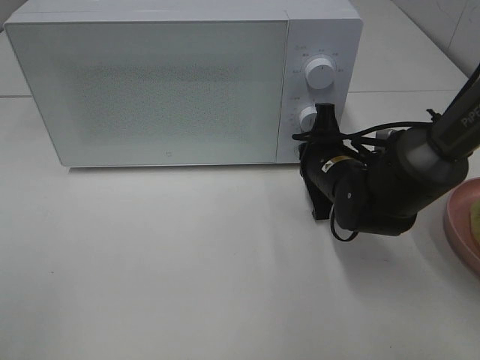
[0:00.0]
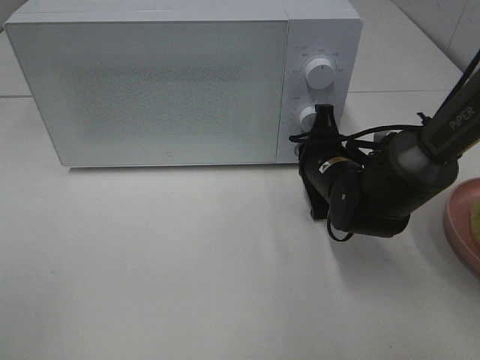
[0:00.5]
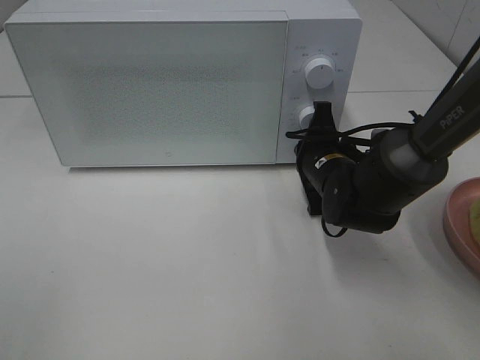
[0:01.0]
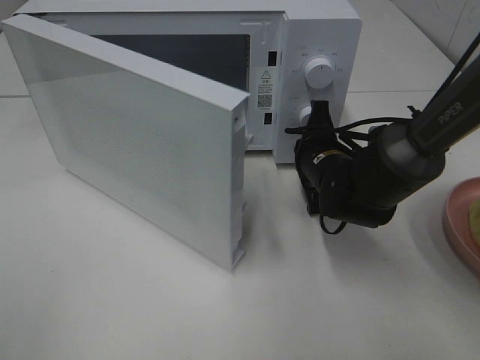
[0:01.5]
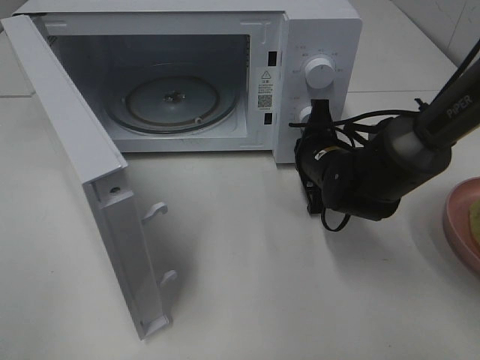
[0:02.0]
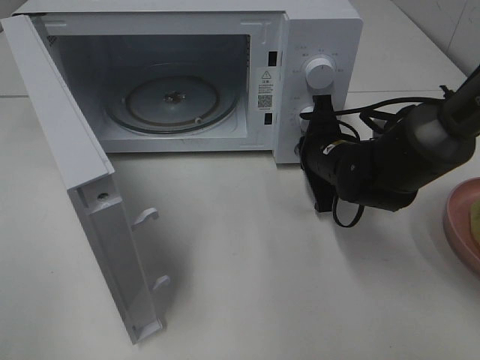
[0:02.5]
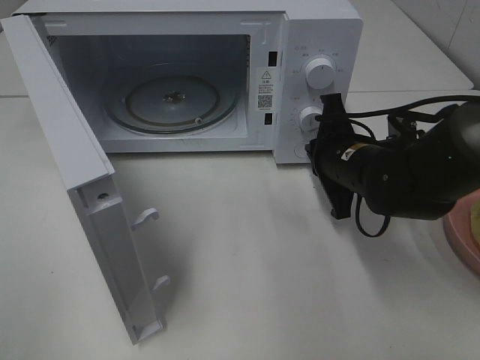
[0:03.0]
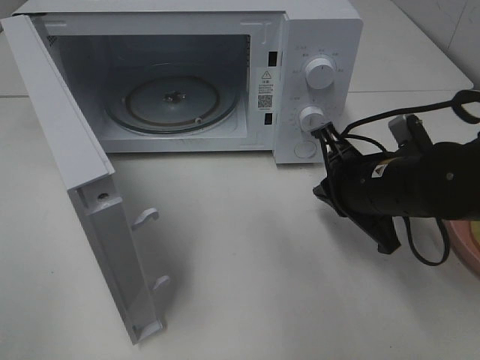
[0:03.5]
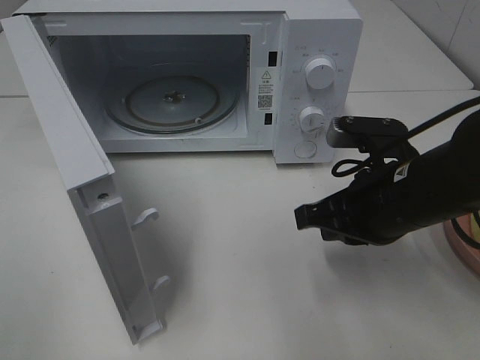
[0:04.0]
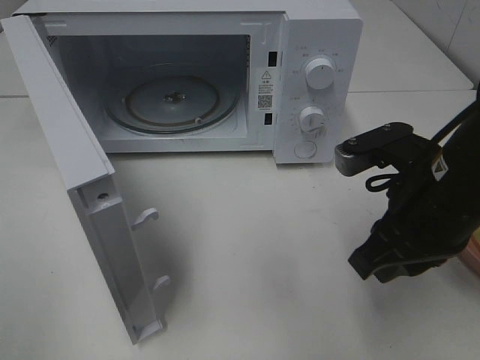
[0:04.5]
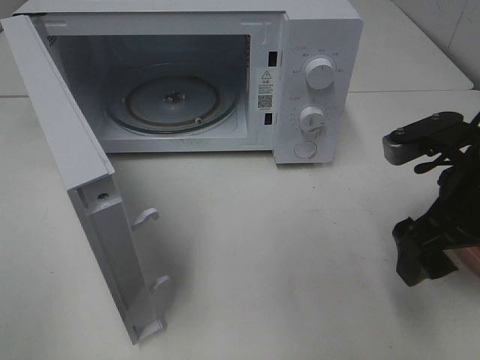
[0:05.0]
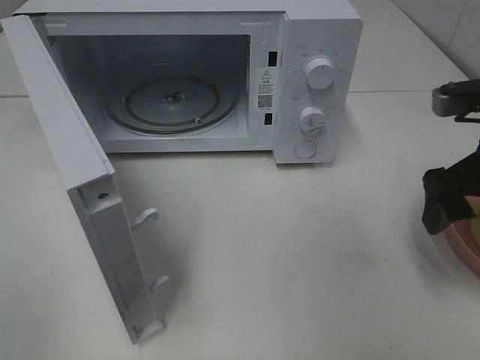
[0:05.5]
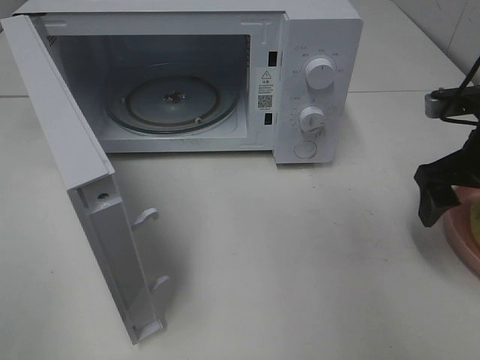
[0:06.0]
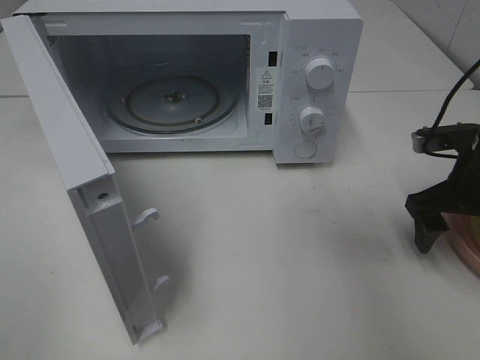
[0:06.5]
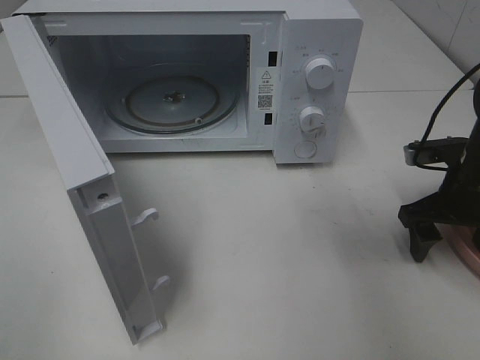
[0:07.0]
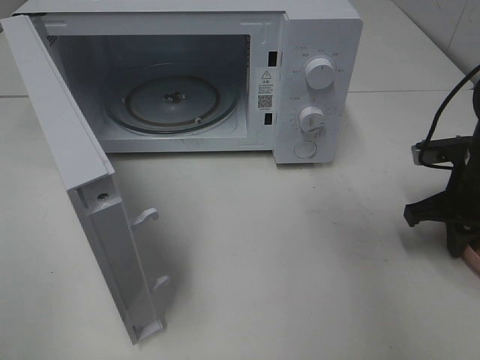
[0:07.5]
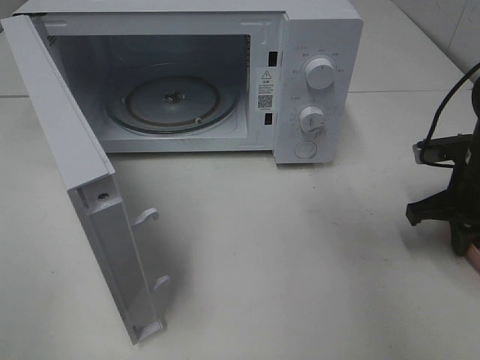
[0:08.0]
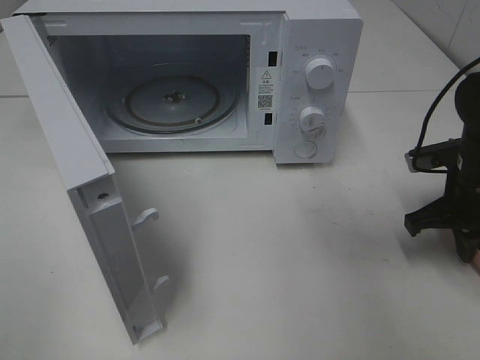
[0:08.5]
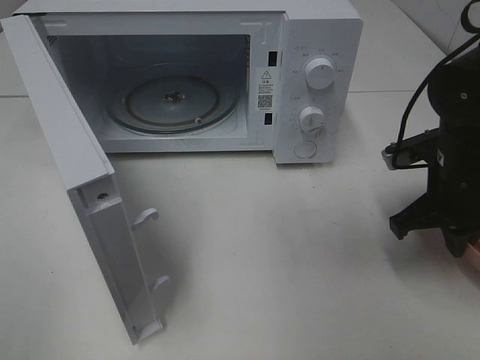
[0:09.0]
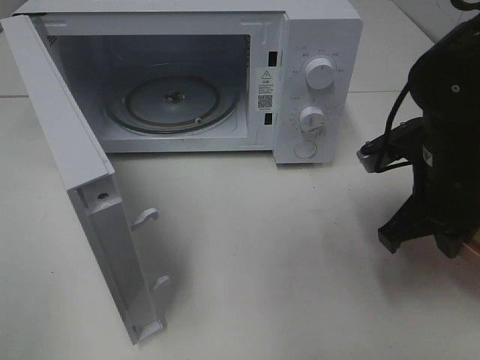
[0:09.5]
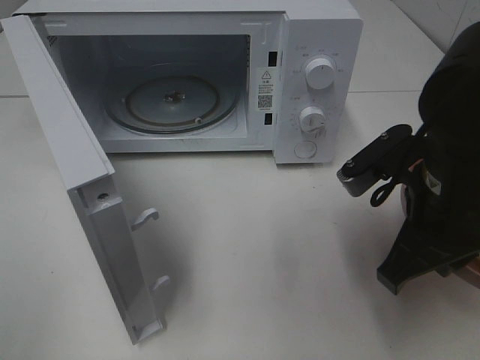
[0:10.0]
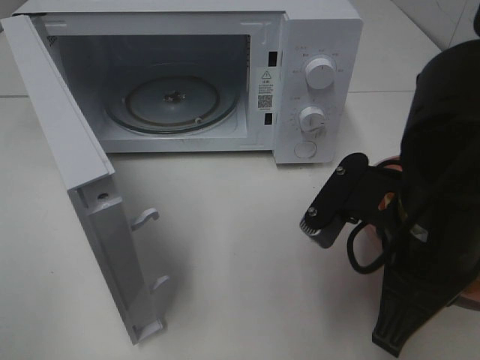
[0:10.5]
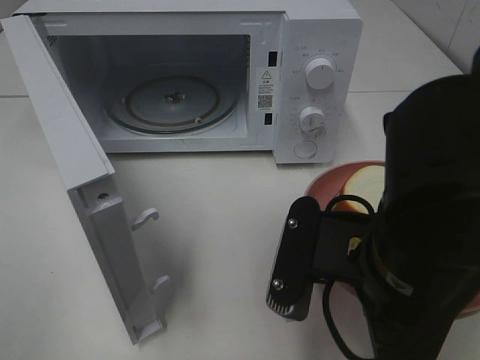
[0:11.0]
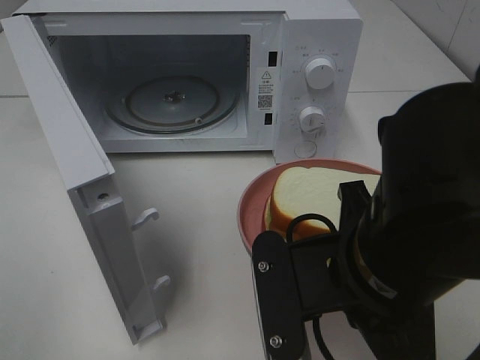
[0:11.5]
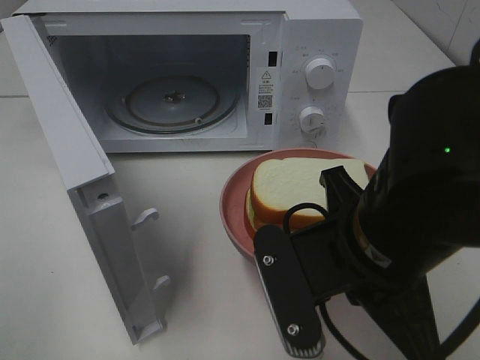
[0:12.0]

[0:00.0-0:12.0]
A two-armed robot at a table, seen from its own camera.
Task of the whole recording: Heat Sandwich.
Step, 0.0 to 3.0 s: Right hand: press the switch.
Step, 3.5 to 8.5 s: Right hand: grab the plate with the sandwich.
2.0 to 4.0 s: The right gripper moves backward and upward, approximately 15 cm.
4.0 to 6.0 s: The right gripper moves to the right and forward, about 15 cm, and opens up.
6.0 to 8.0 s: The right gripper goes about 5 cm downward, and closes up.
8.0 to 10.0 s: The right gripper goes roughly 15 cm to the left, backward and upward.
10.0 to 12.0 s: The right gripper travels to the left and backward by about 10 cm.

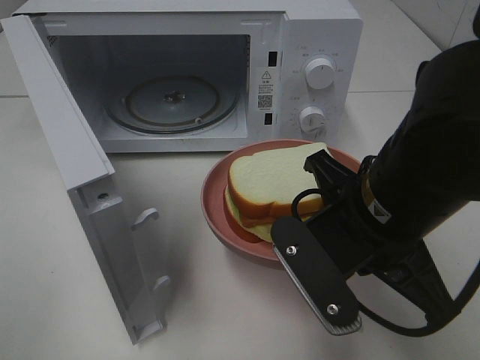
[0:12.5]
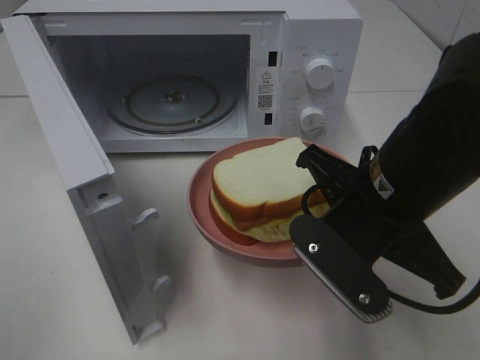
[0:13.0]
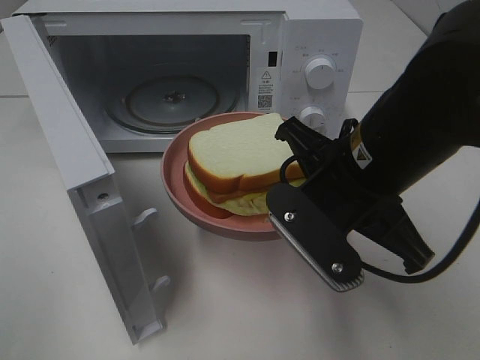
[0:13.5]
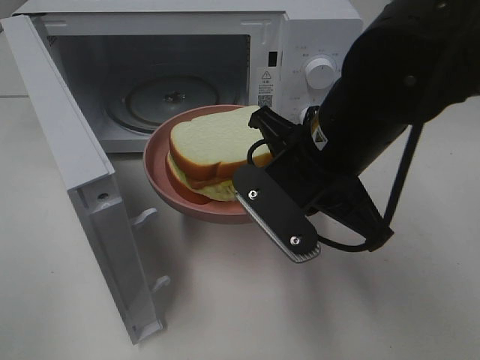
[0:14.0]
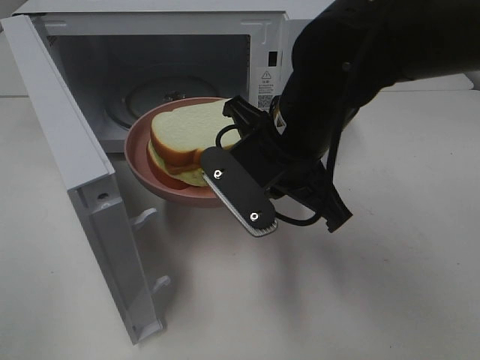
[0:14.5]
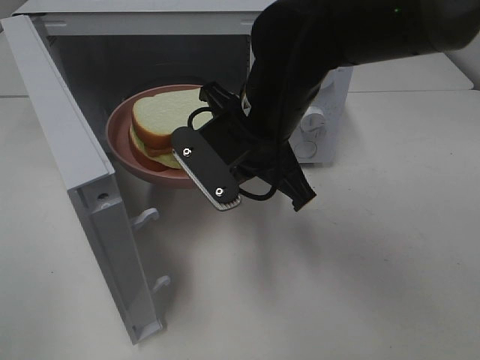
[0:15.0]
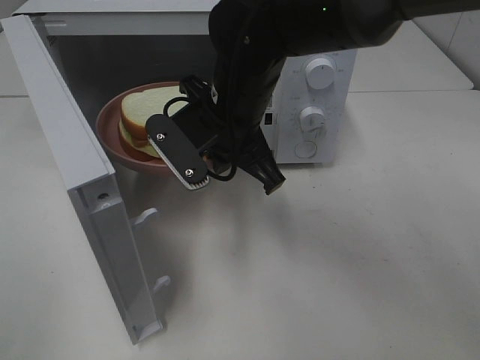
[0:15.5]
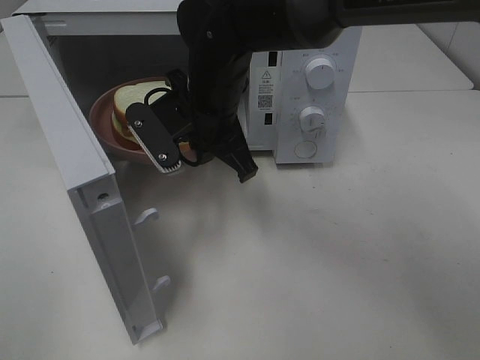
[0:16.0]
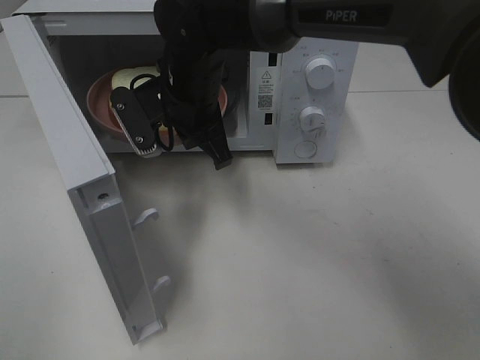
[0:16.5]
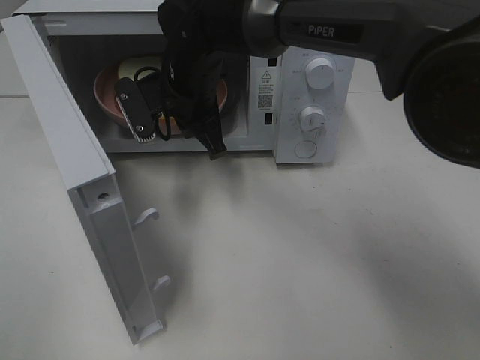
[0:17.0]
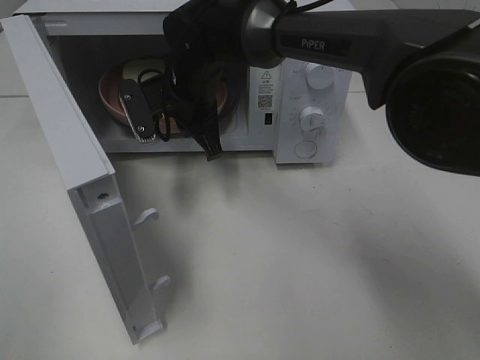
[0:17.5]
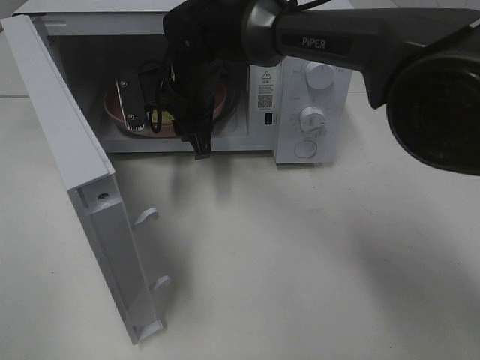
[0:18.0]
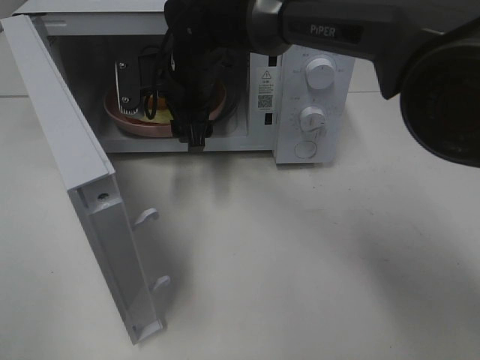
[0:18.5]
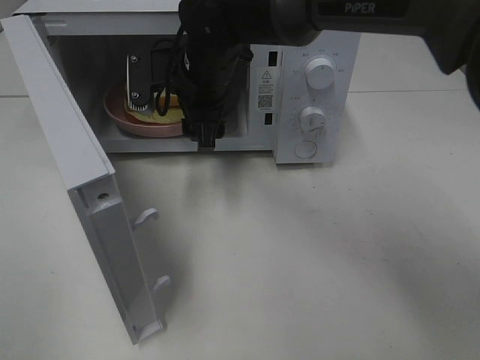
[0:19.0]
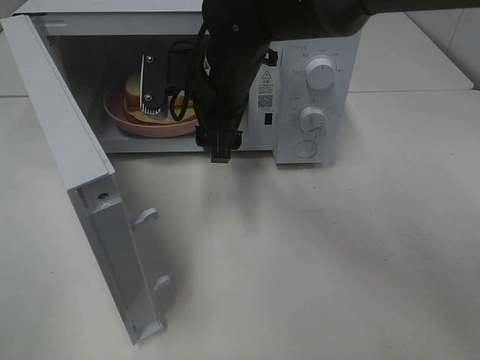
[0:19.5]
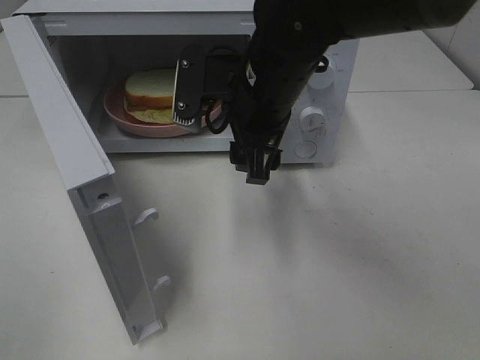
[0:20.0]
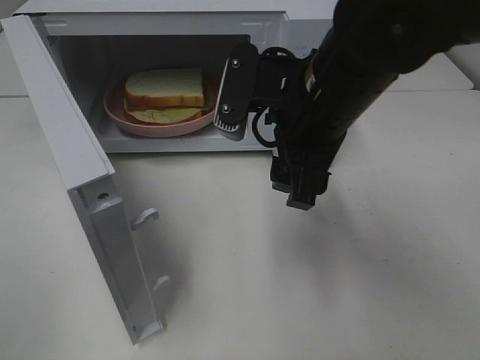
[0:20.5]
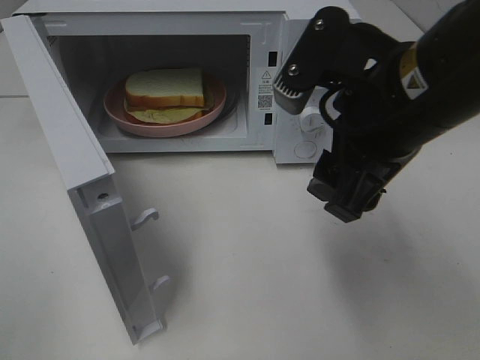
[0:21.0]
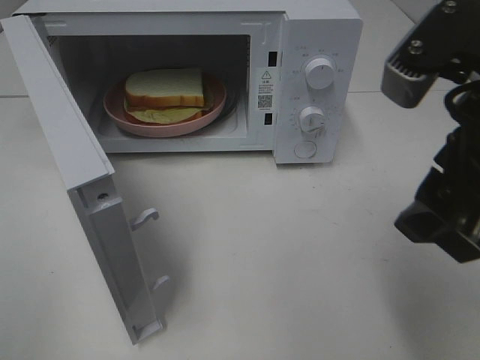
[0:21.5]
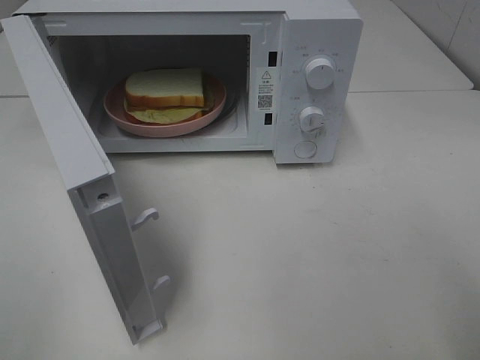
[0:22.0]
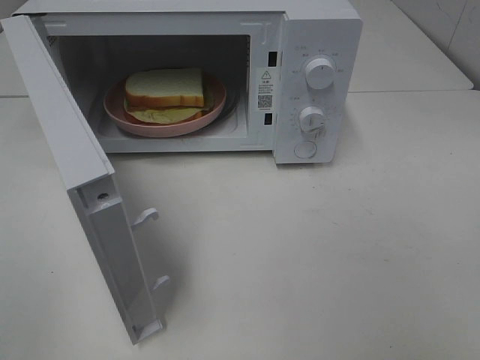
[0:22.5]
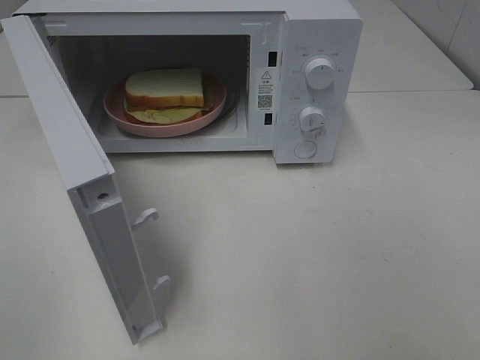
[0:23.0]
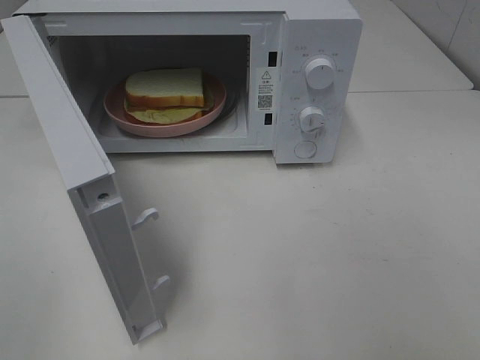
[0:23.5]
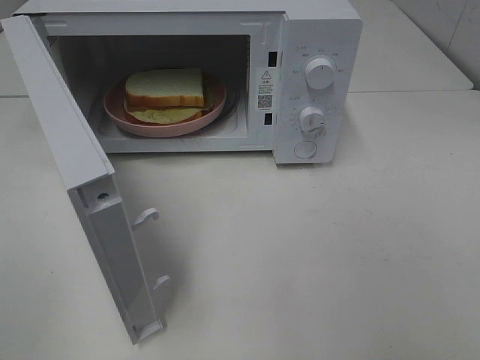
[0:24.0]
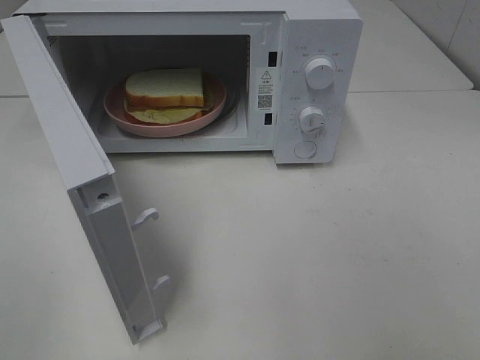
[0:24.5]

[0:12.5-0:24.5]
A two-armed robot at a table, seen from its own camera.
Task of the whole recording: Heat Sandwich.
Step, 12.5 to 18.5 s: Right hand: place the plate in the microwave.
12.5 to 14.5 s: The right gripper moves forward and to the left, some 10 cm.
14.5 to 16.5 s: The right gripper travels forward and to the left by approximately 15 cm.
16.5 to 18.5 s: The right gripper opens its fingers.
18.5 to 20.5 s: The right gripper is displaced backward and to the right by about 20 cm.
20.5 to 22.5 s: The right gripper is displaced backward and to the right by approximately 30 cm.

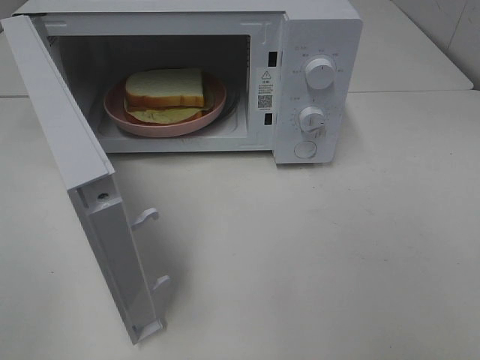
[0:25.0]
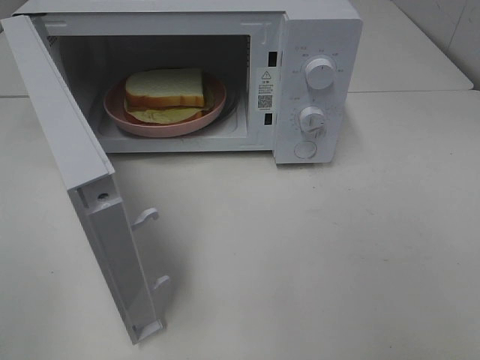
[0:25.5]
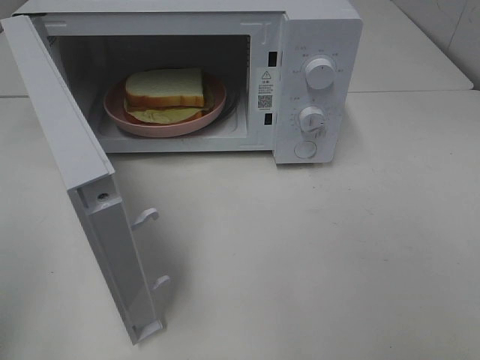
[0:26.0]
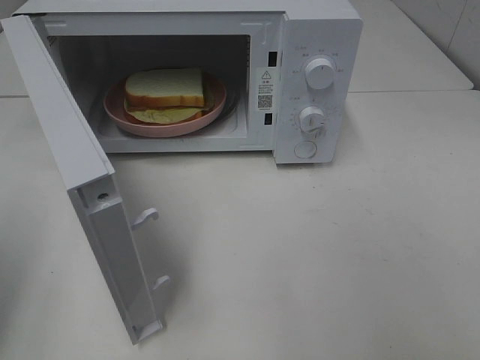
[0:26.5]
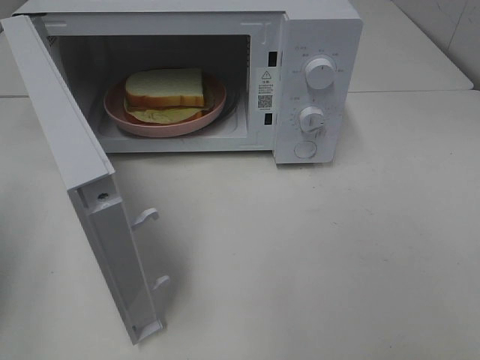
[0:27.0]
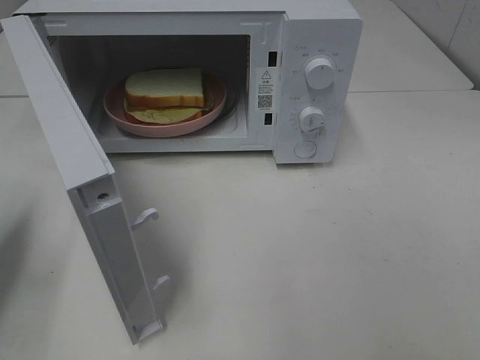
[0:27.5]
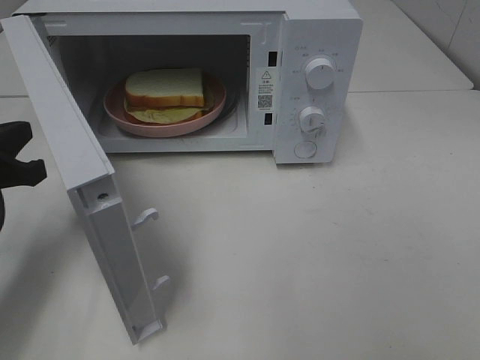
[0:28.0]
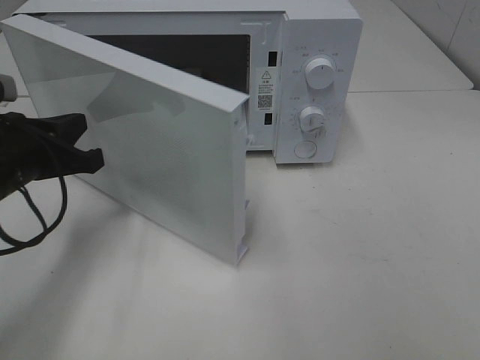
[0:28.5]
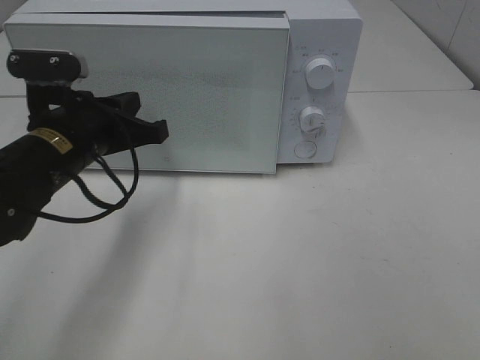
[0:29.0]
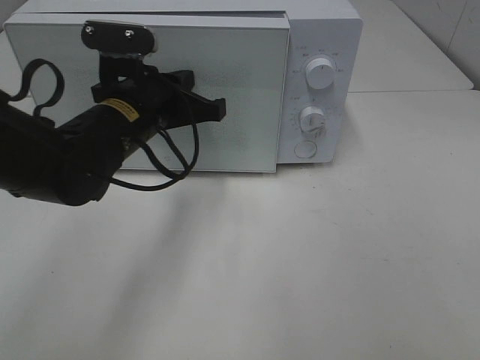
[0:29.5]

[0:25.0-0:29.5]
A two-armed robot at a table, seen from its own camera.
Task of the whole recording: Heat Sandwich.
27.0 to 29.5 s: The left gripper is displaced to the right and forward by about 30 cm.
